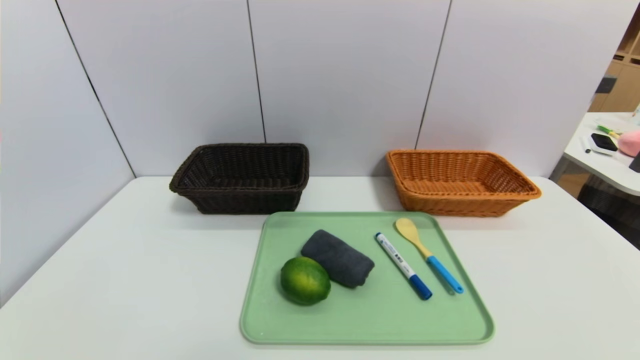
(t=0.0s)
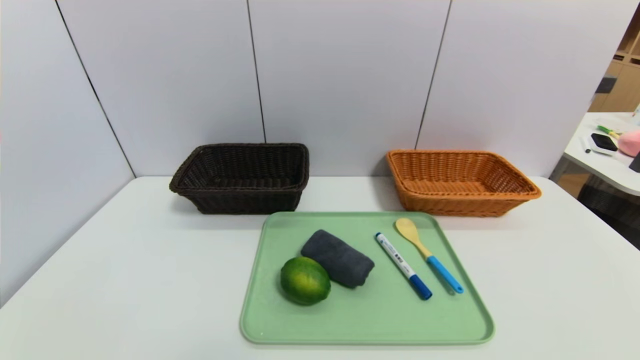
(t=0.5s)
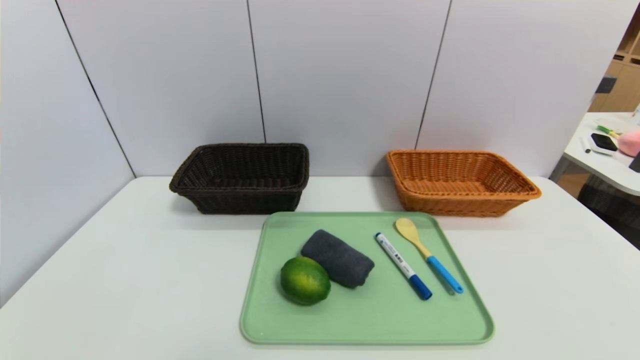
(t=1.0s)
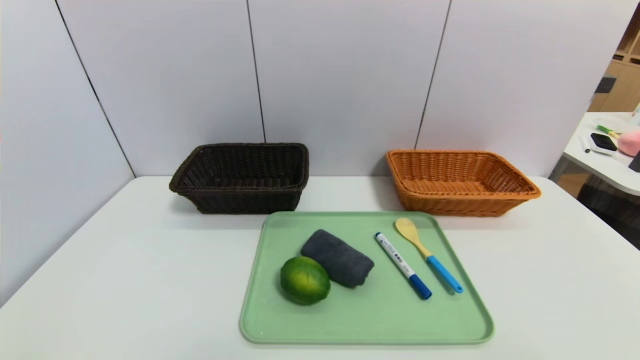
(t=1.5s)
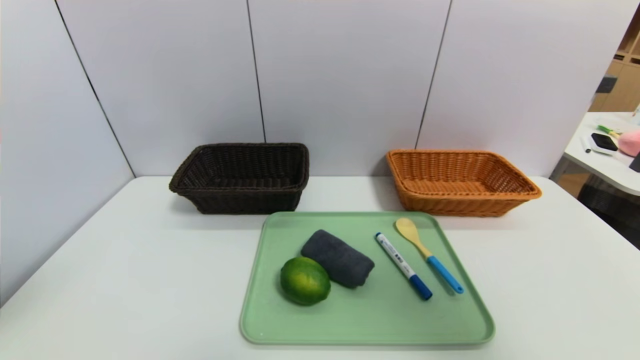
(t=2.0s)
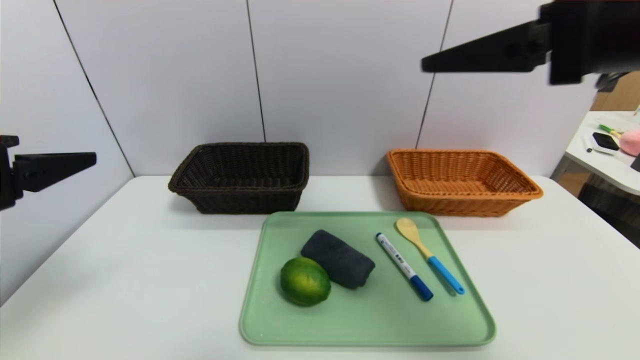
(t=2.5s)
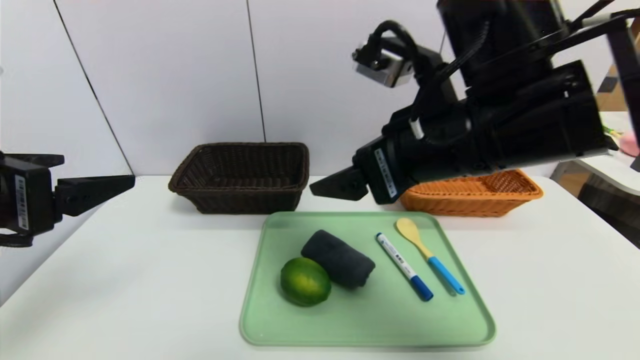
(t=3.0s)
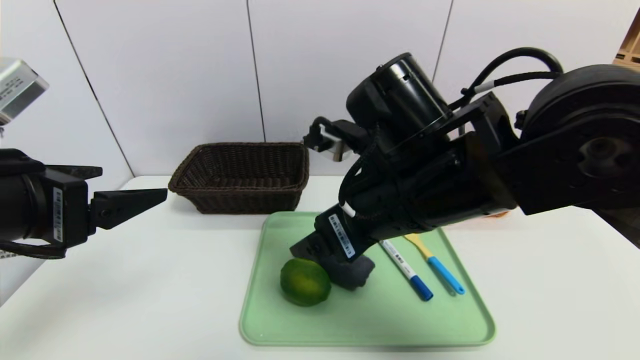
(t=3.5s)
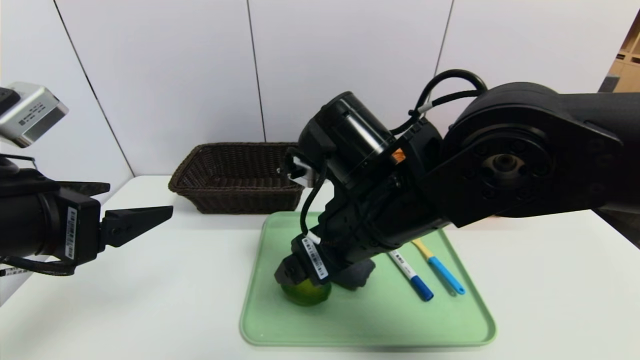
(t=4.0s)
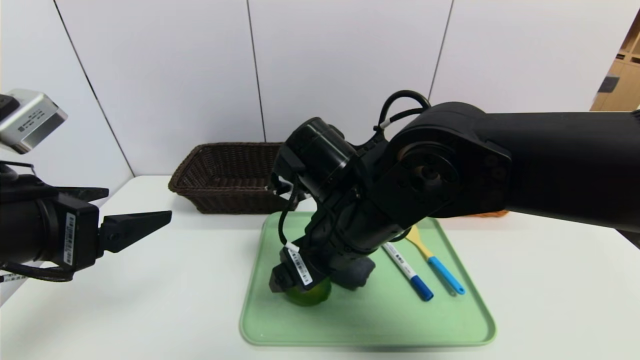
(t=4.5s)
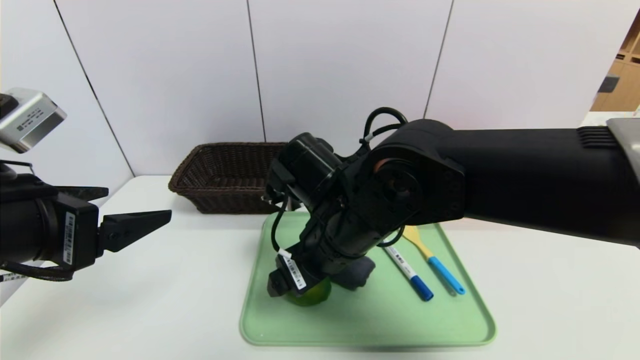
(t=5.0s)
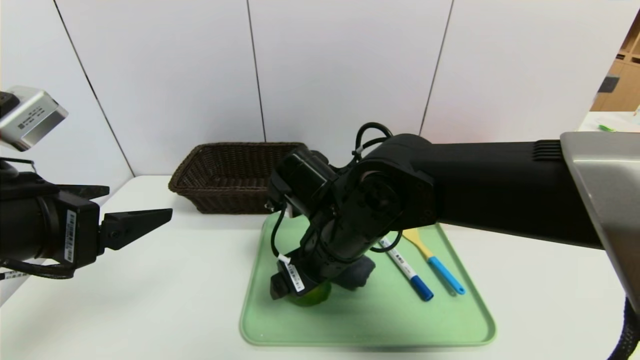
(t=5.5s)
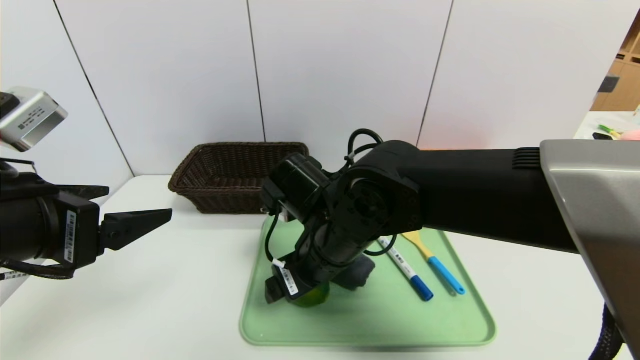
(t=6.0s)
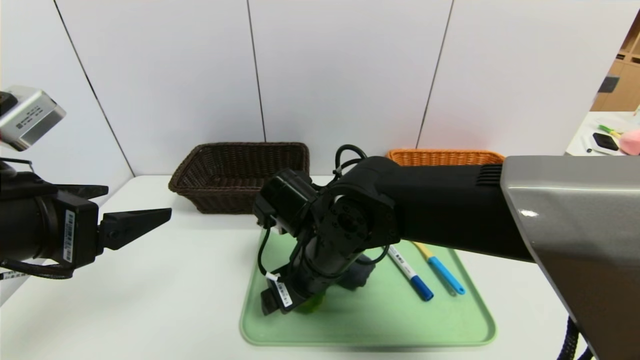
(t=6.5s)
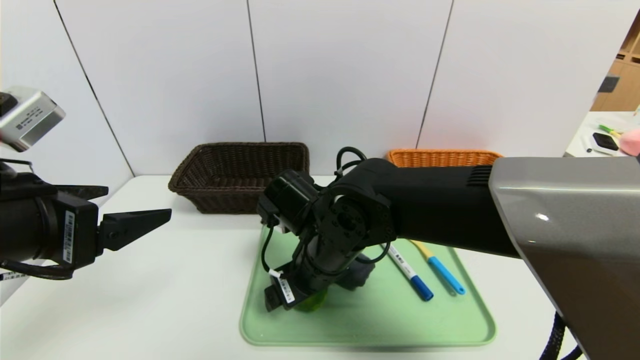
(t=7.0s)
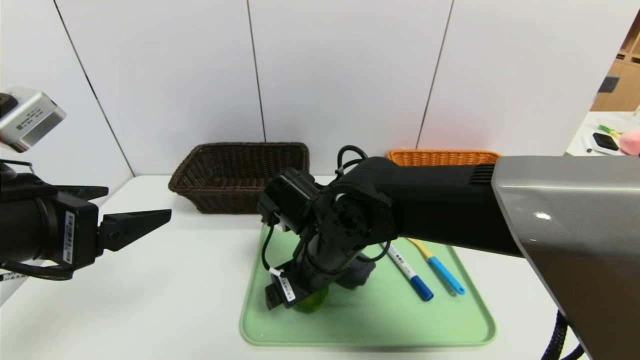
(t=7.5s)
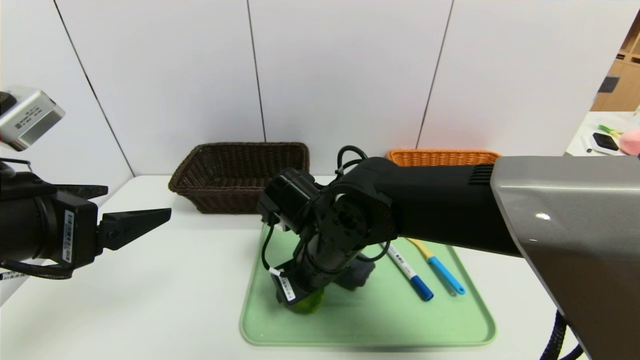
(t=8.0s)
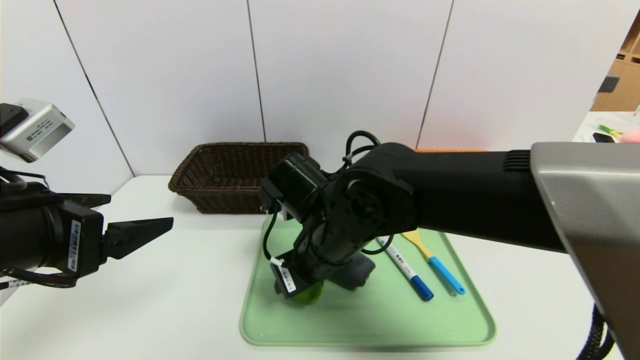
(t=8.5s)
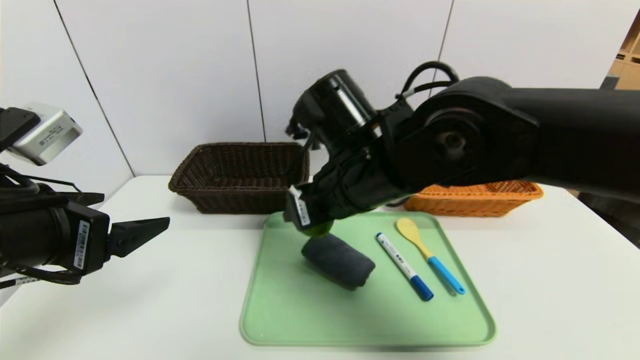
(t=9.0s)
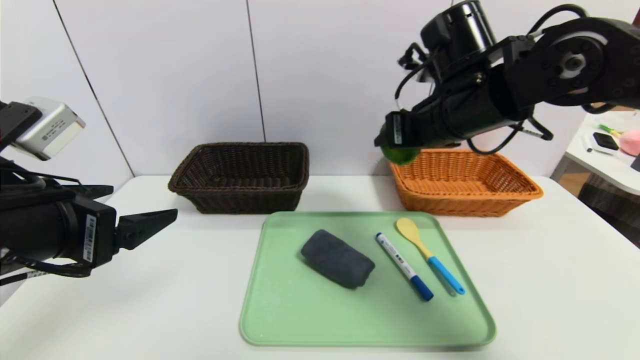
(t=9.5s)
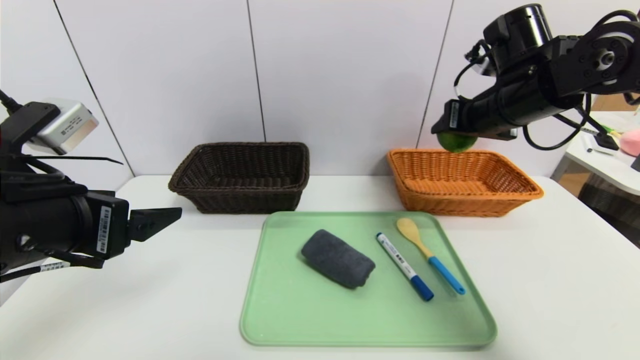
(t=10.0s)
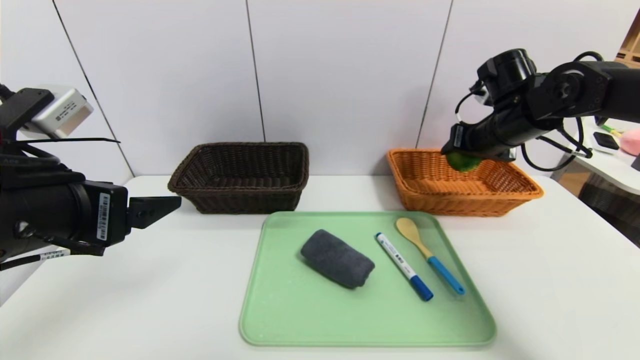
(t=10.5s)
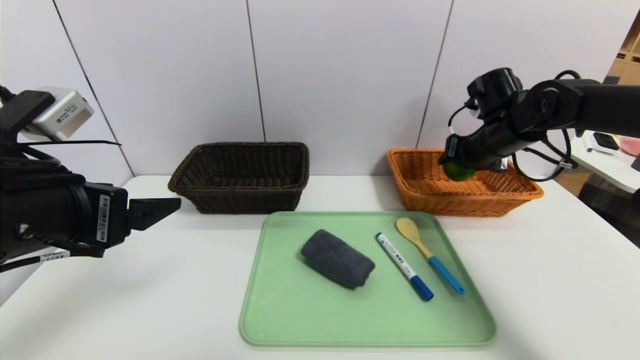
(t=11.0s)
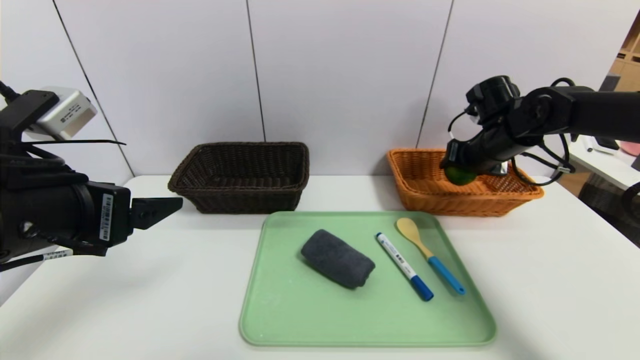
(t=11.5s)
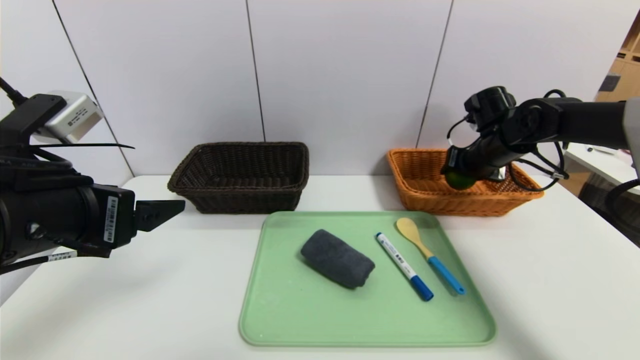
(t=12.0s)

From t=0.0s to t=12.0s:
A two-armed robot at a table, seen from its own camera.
Task of the whole recording: place the food in the right basket with the right gripper, and place the non food items in the left basket with the left gripper.
From t=0.0s to t=2.0s: Both grippers move upward, approximately 35 cm.
From t=2.0s to t=4.0s: The left gripper heads downward, forward and to the right, covering roughly 15 cm; the right gripper moves to the left, downward and forward, some 35 cm.
From t=4.0s to t=6.0s: The right gripper shifts about 5 cm downward.
From t=6.0s to t=8.0s: The right gripper closes its fingers.
From t=8.0s to t=10.0s: The right gripper heads to the right, upward and forward, covering some 30 cm.
From t=10.0s to t=12.0s: The right gripper goes some 15 cm downward and forward.

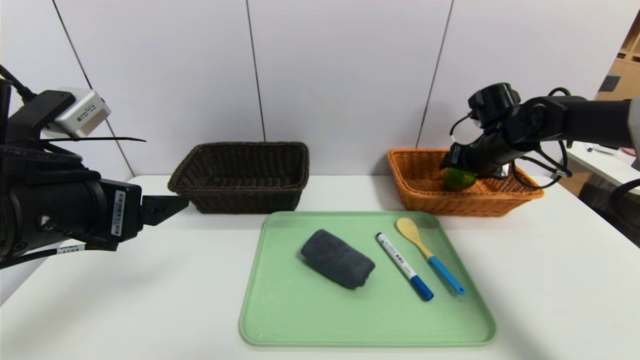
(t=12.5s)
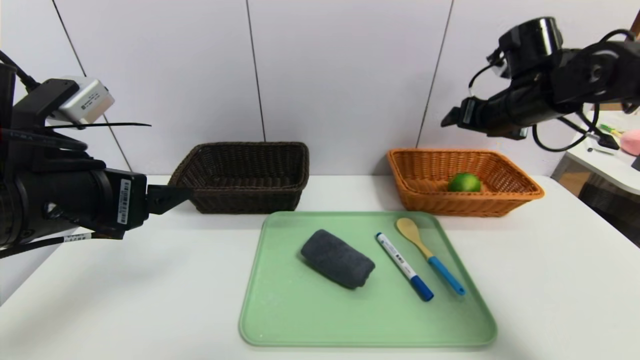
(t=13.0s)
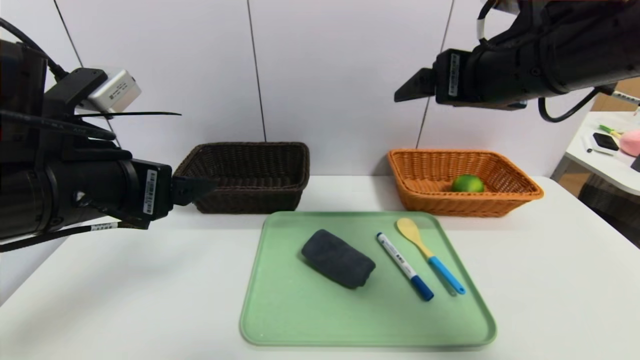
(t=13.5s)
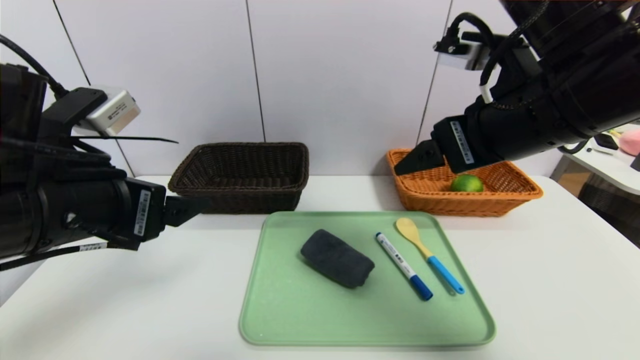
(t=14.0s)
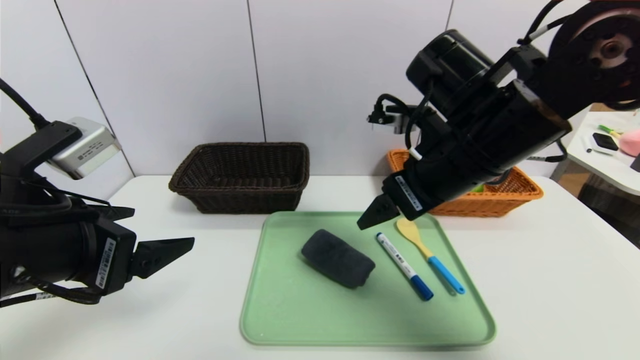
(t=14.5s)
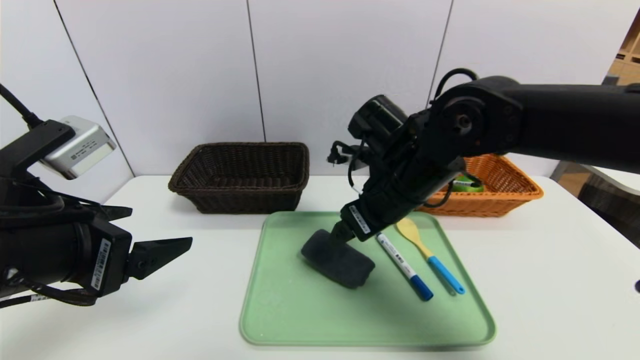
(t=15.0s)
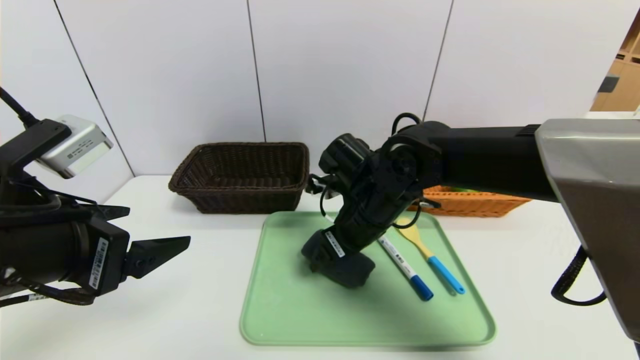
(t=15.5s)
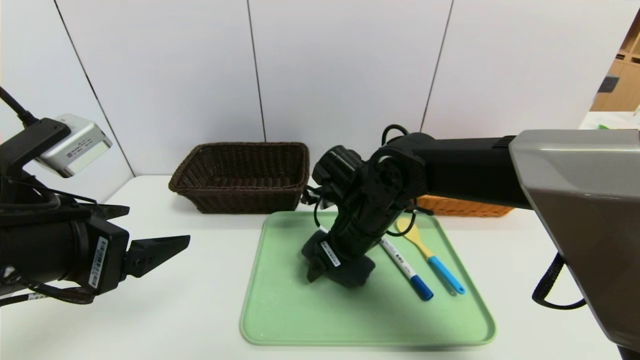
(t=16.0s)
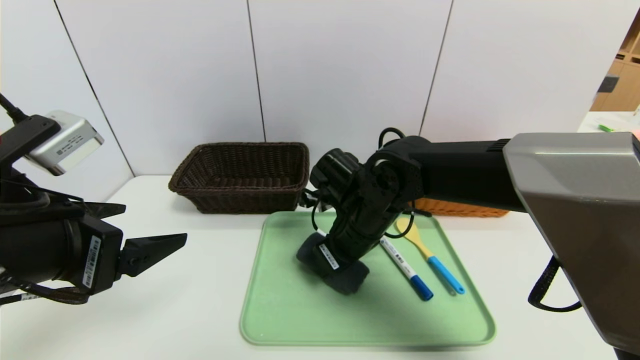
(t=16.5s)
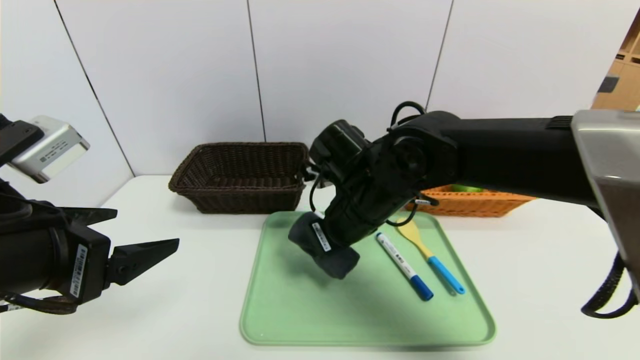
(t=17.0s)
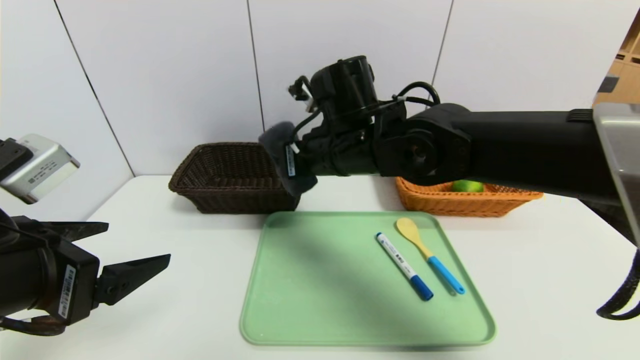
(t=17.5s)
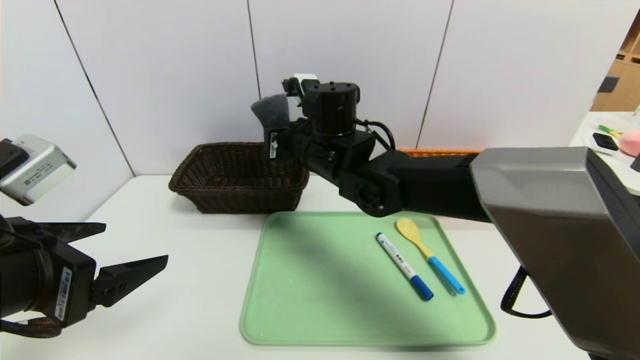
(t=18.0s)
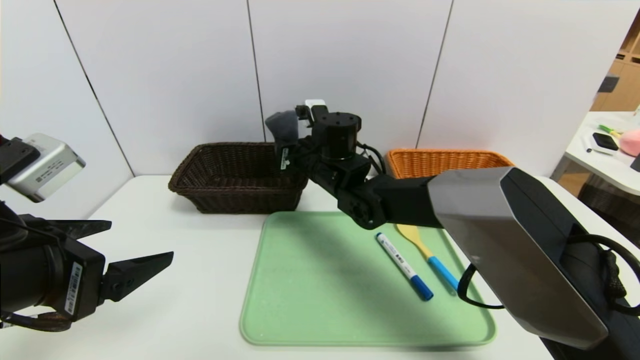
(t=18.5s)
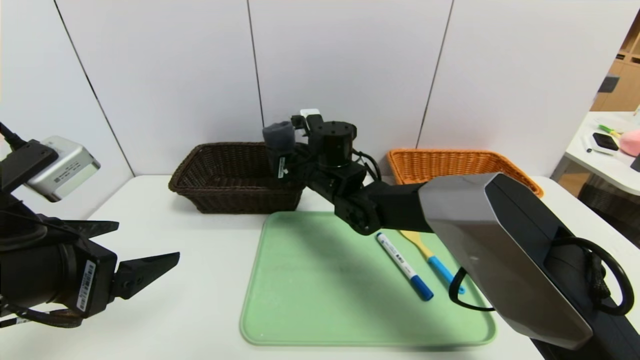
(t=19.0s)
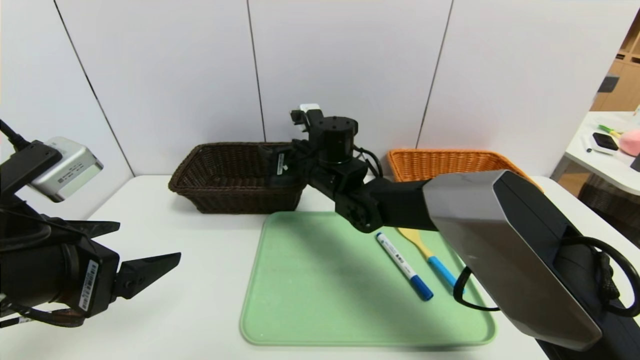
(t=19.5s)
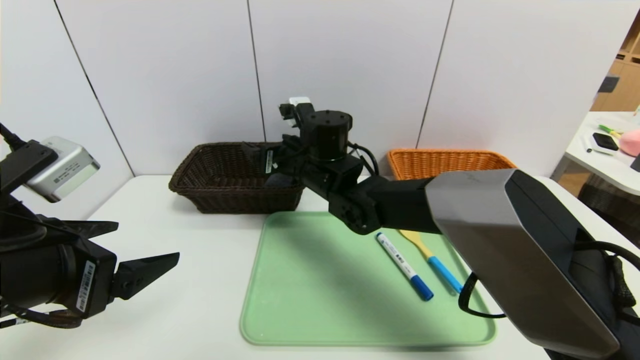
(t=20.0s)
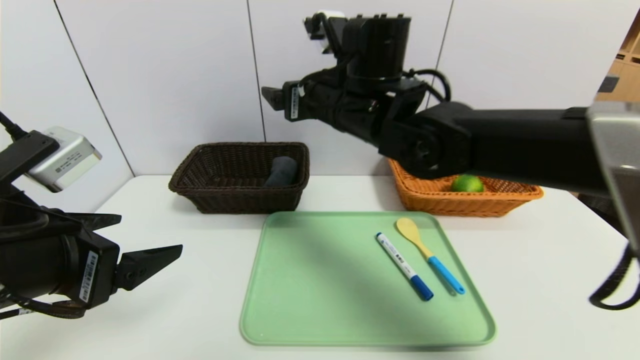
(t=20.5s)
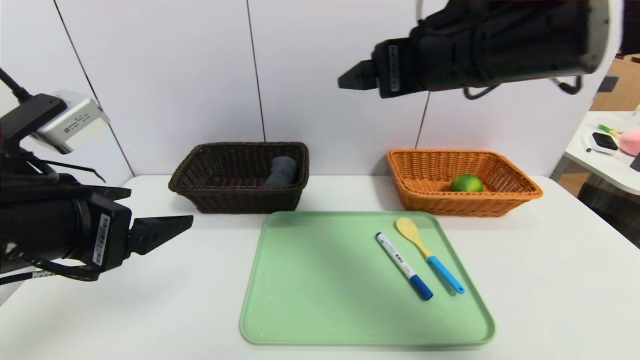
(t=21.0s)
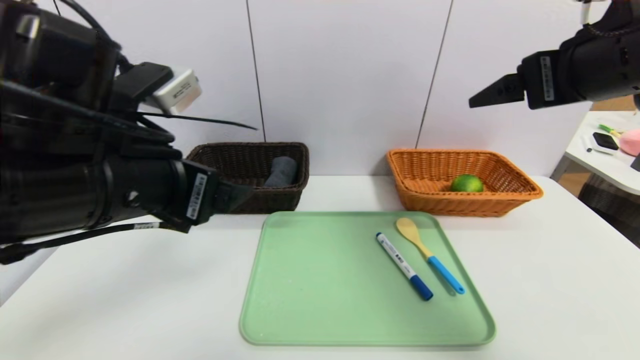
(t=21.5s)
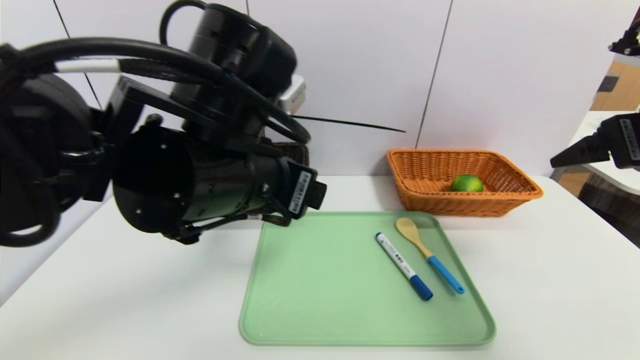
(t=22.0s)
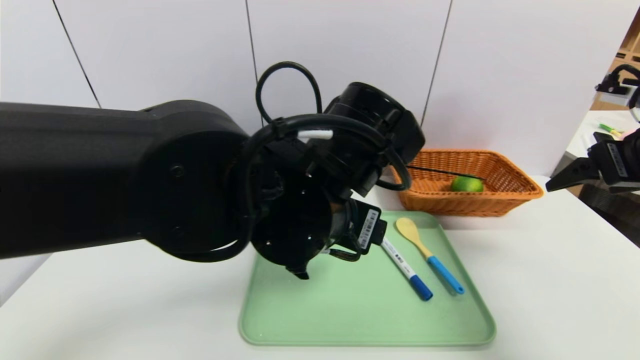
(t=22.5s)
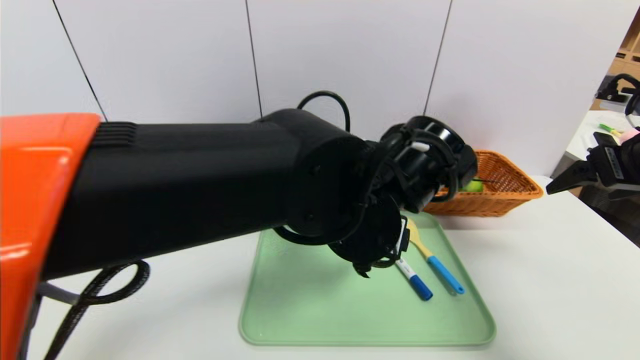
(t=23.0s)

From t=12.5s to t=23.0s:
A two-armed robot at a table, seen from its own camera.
Task of the whole recording: place the food in the right basket with the right gripper, and place the non food items in the left basket with the left gripper.
From t=12.5s to t=14.5s: The right gripper shifts roughly 25 cm backward, to the left and upward.
From t=14.5s to t=16.5s: The right gripper goes some 15 cm downward and to the left, and closes.
From t=16.5s to t=19.0s: The right gripper heads forward and to the left, covering roughly 10 cm, and closes and opens again.
From t=19.0s to t=21.0s: The right gripper is displaced upward, backward and to the right by some 30 cm, and opens its fingers.
From t=21.0s to t=23.0s: The grippers both shift to the right by approximately 25 cm.
